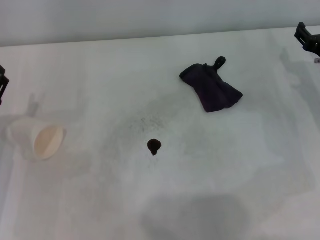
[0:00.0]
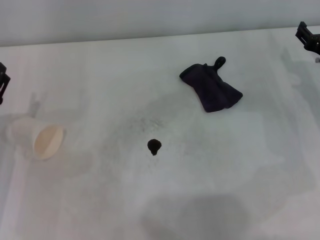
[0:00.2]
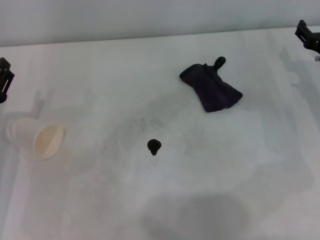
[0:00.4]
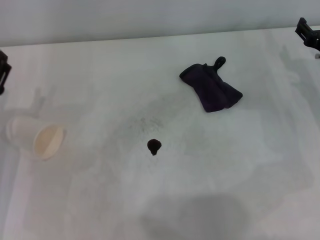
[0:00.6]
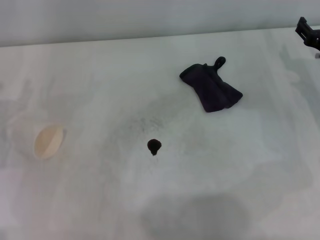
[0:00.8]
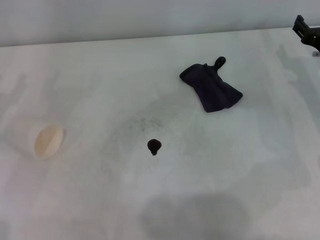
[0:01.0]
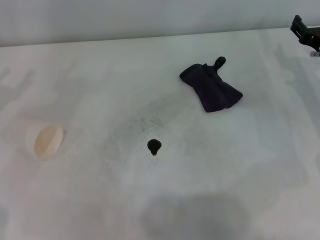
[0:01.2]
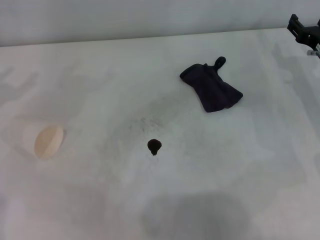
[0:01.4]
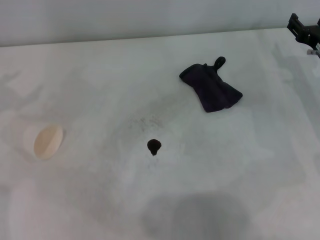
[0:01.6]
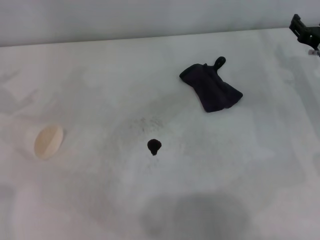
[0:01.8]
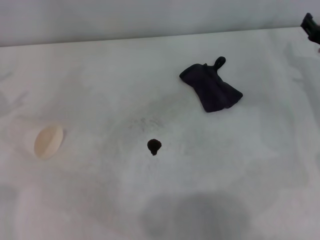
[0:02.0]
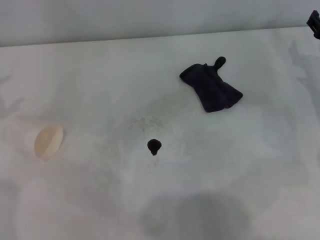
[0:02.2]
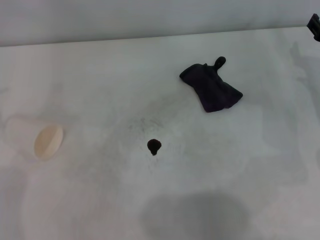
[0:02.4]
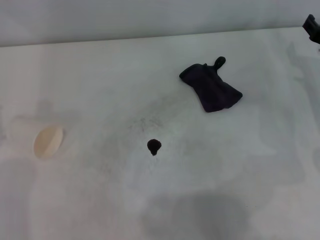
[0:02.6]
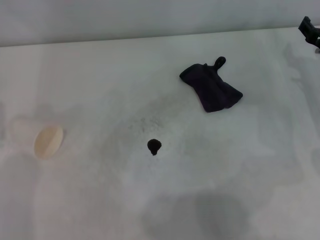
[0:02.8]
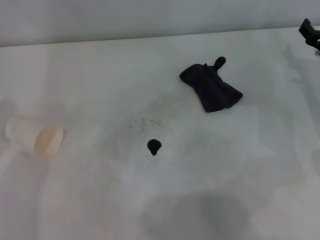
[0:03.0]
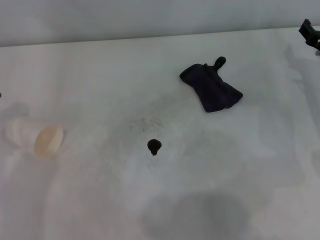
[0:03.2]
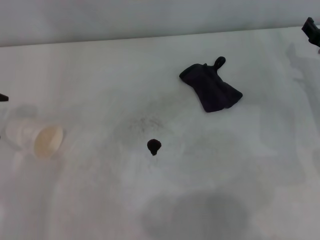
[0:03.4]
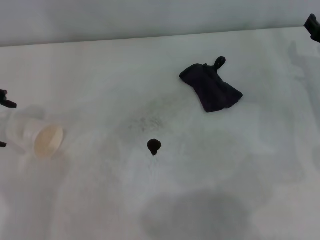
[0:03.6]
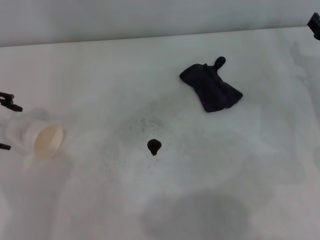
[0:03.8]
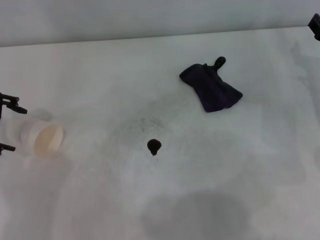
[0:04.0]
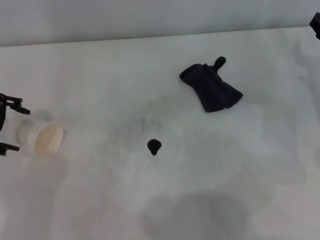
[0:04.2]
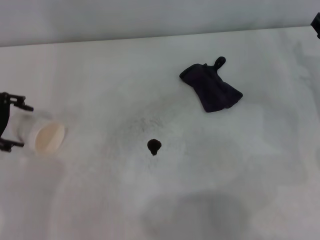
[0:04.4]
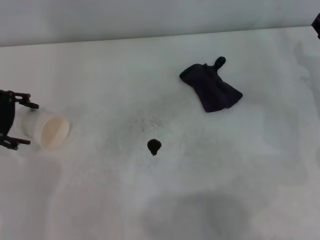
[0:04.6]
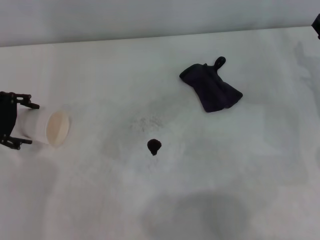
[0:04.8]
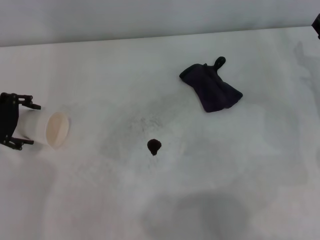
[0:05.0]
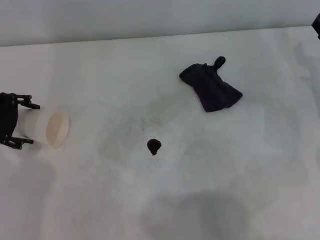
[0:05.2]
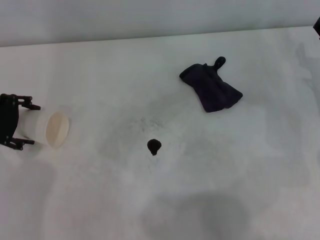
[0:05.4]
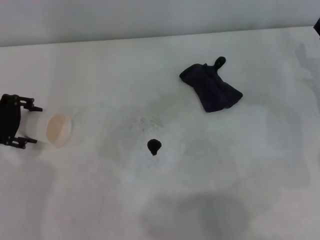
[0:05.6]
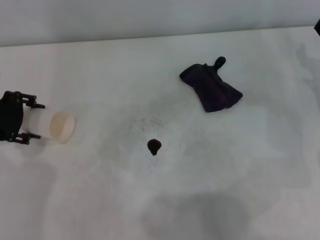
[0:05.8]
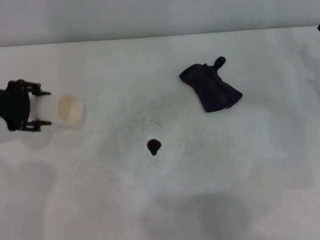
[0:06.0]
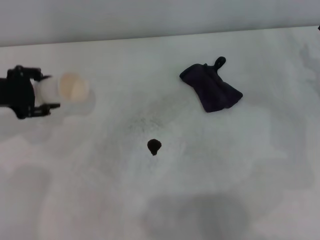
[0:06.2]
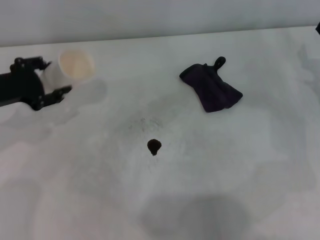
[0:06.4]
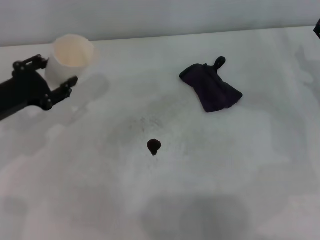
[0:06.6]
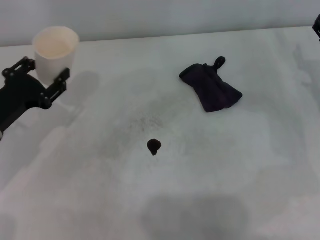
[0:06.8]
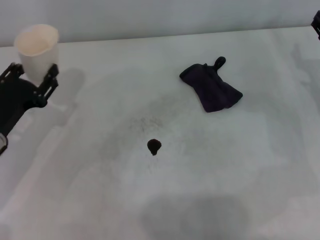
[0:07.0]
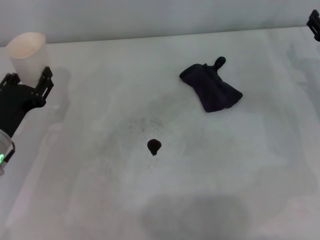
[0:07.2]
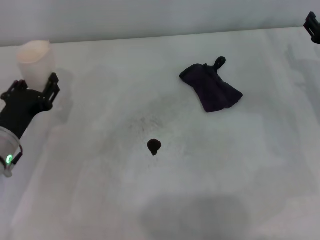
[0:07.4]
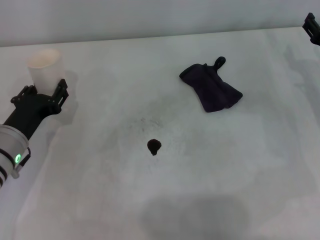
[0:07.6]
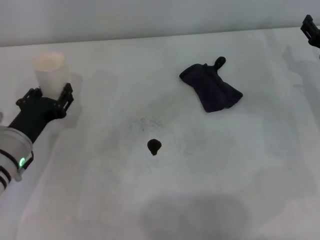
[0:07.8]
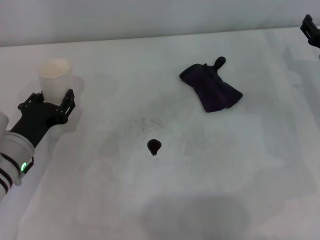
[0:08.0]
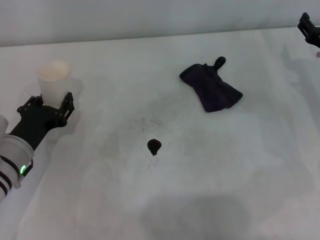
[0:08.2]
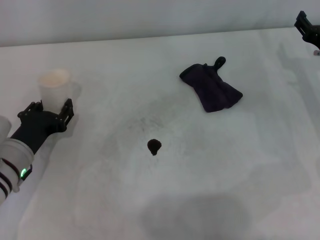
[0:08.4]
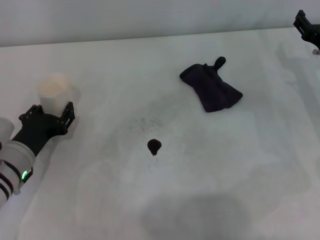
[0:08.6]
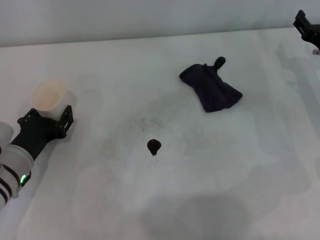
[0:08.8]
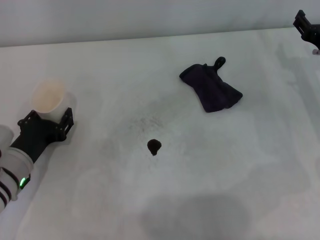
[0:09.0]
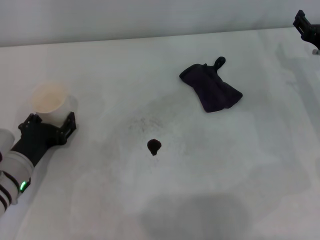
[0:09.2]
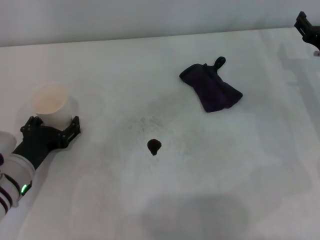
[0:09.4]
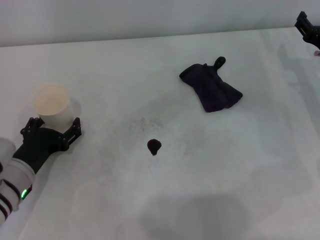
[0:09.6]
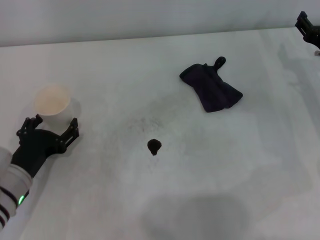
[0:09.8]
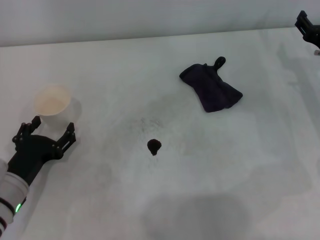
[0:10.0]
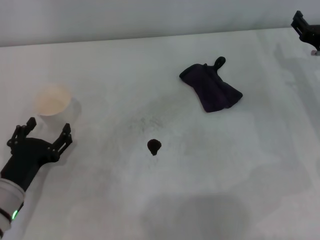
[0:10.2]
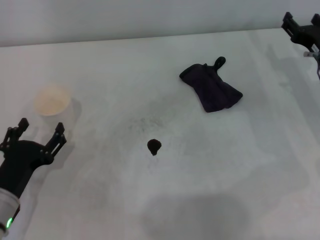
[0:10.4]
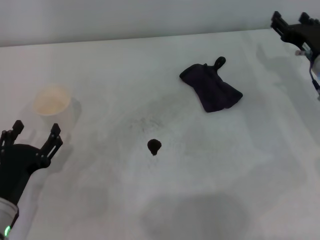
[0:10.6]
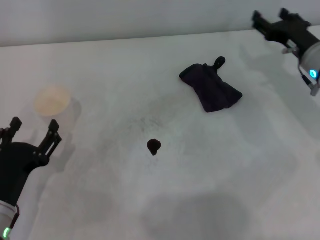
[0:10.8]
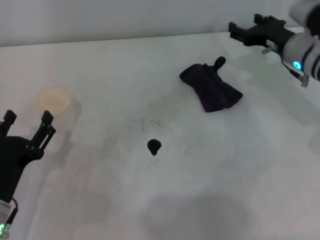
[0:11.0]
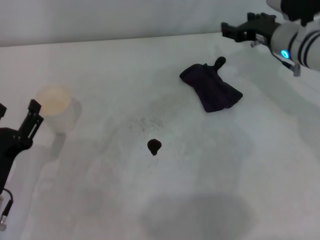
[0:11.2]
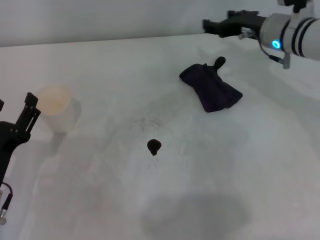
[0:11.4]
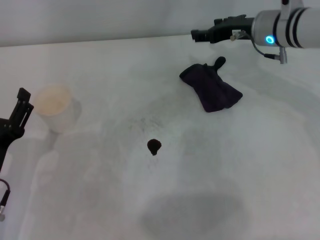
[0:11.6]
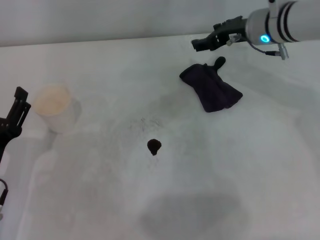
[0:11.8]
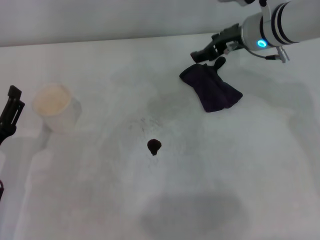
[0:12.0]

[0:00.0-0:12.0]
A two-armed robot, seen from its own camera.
Step, 0.0 to 5.6 s: Grasp the paper cup with the left gripper.
Step, 5.8 to 9.6 s: Stand the paper cup upright with the left gripper.
3.0 to 4.4 s: The left gripper heads to the right and downward, covering approximately 10 cm.
4.4 to 6.0 s: The left gripper closes its fingers.
6.0 to 7.6 s: The left gripper moves downward, backward and to the right, approximately 15 cm, and closes up.
7.6 to 9.0 s: There are only small adjustments of the grippers.
9.0 to 10.4 s: The left gripper is displaced backward by some 5 cm, and opens its fingers.
10.4 to 12.0 s: The right gripper goes approximately 15 cm to the left, upward and forward.

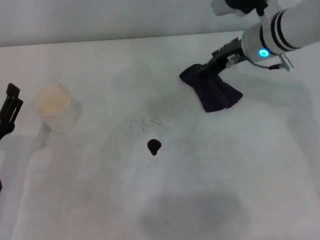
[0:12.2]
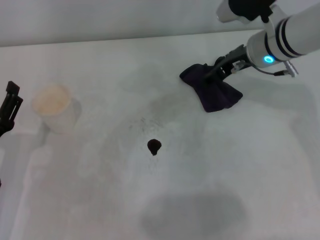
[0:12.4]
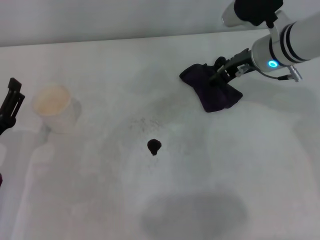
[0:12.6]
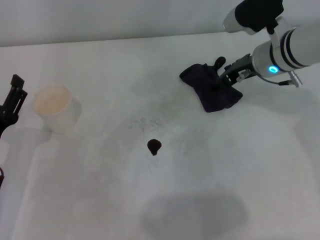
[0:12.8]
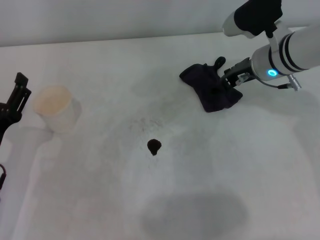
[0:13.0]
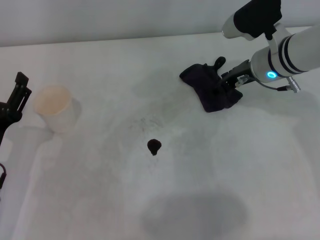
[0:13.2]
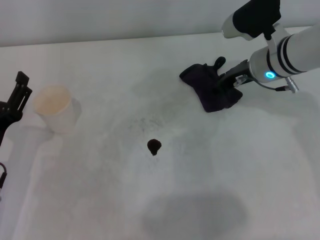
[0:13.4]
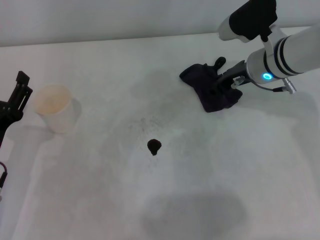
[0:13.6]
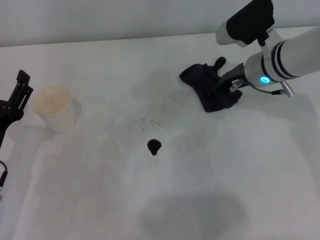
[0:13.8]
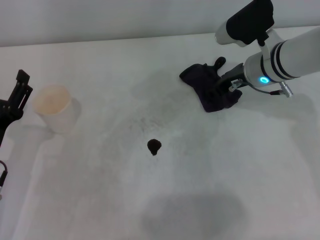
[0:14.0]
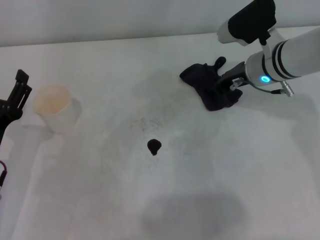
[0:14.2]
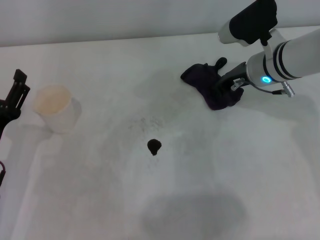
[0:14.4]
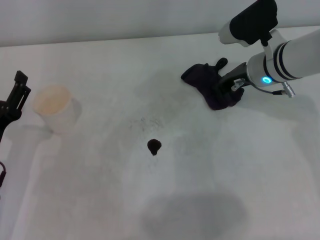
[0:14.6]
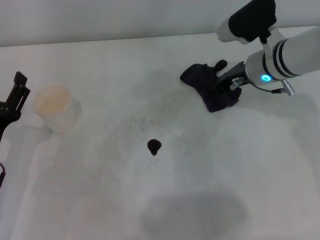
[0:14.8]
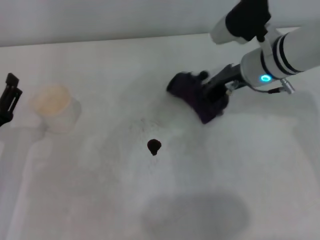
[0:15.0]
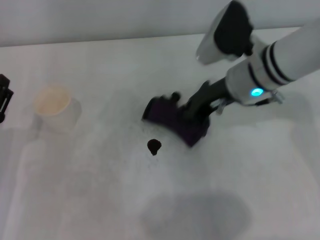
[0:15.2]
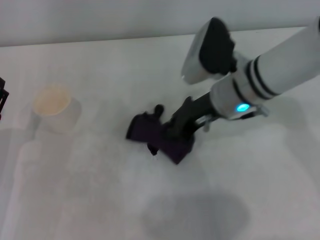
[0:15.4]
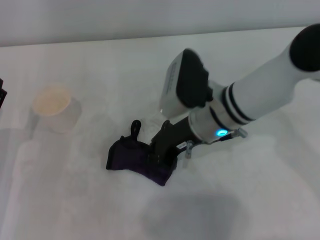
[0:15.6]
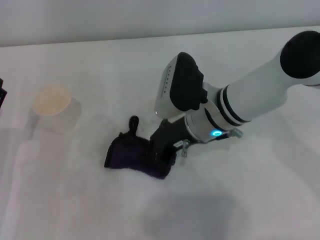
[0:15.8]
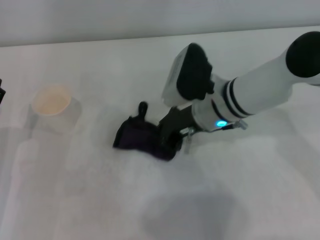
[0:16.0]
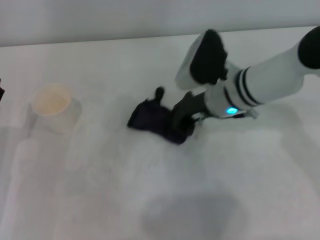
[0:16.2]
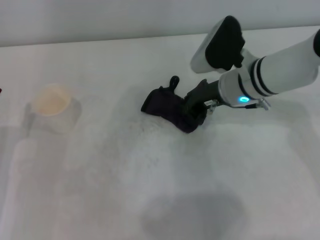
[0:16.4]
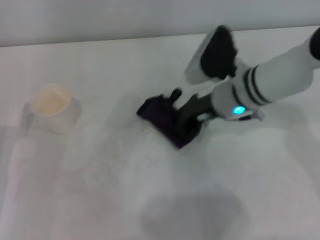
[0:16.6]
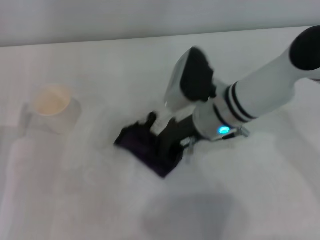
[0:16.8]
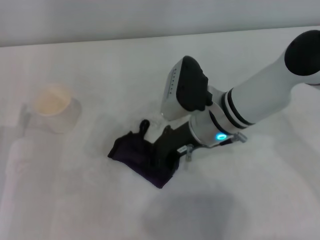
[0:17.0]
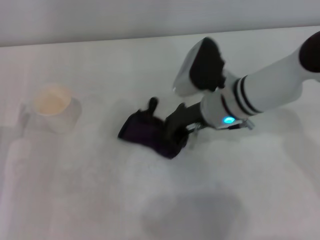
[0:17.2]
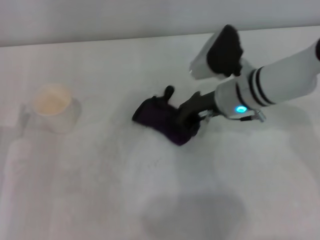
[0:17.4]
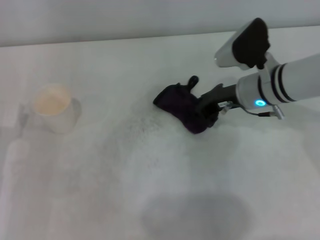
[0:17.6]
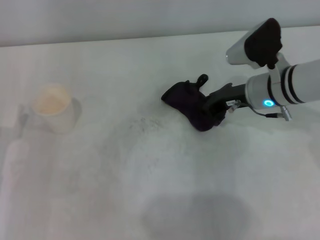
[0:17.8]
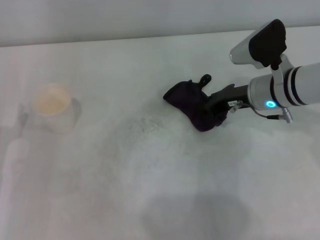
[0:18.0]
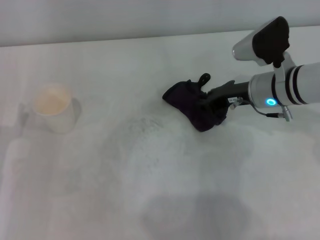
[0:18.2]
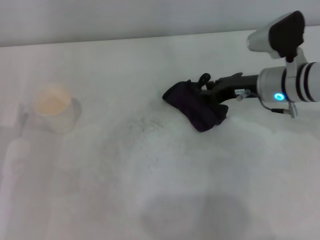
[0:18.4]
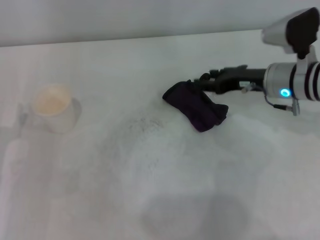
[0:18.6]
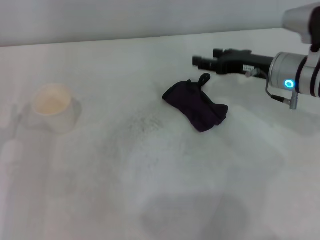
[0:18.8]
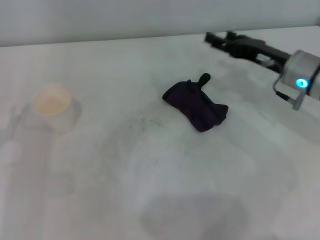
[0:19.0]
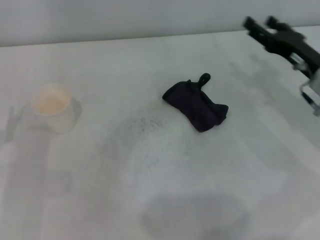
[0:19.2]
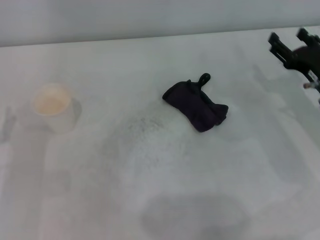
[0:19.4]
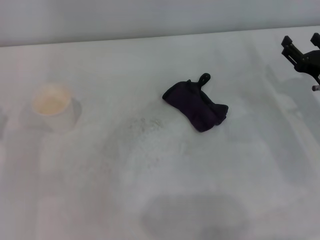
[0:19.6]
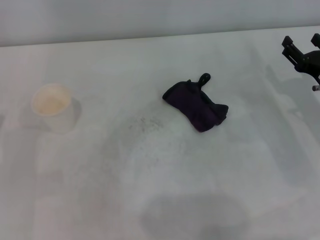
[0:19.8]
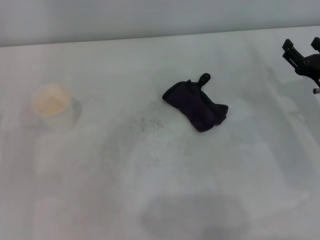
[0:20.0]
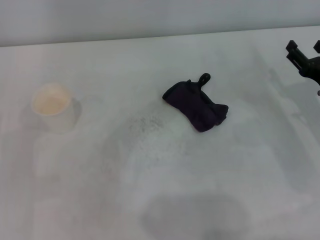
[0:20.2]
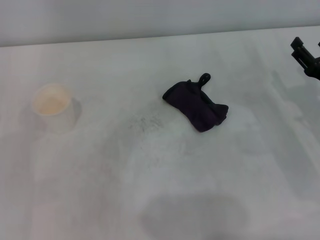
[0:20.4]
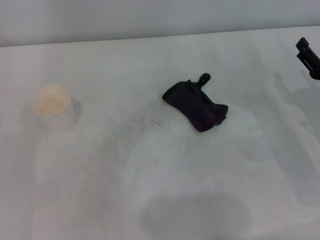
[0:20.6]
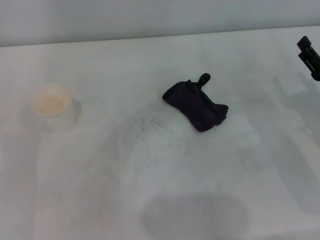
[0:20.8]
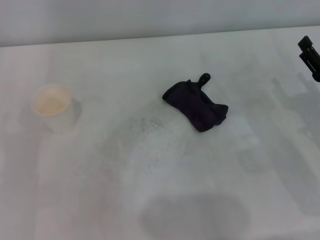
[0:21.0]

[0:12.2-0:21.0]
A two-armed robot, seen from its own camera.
Step, 12.2 to 14.6 s: Grasp the rag with the right gripper.
Step, 14.8 to 17.2 s: Wipe the stains off the table with the right gripper.
Step, 17.4 to 18.0 s: Place the rag on the table with the right gripper.
12.2 to 13.6 s: The right gripper closes up.
13.6 to 15.2 s: The right gripper shifts by roughly 5 cm, and closes.
16.6 to 18.0 s: The right gripper moves to the right, roughly 5 cm.
18.0 to 19.6 s: The right gripper shifts approximately 15 cm to the right and backward, and opens up.
19.6 to 21.0 s: The right gripper moves backward, some 5 cm.

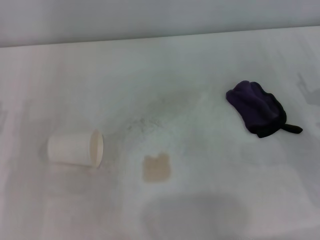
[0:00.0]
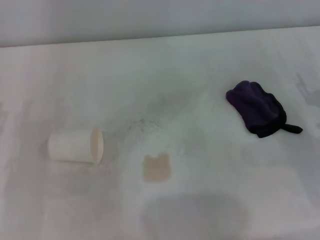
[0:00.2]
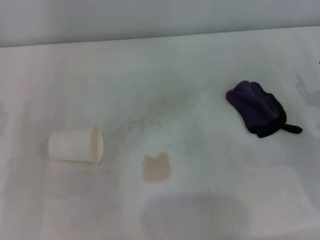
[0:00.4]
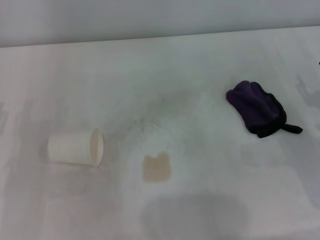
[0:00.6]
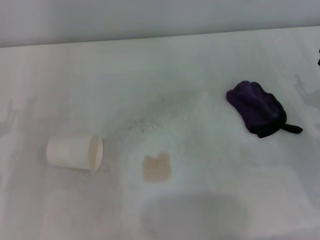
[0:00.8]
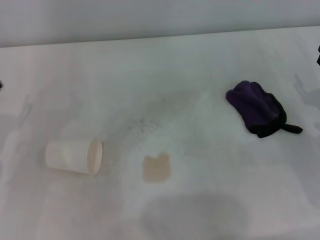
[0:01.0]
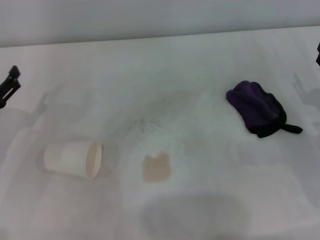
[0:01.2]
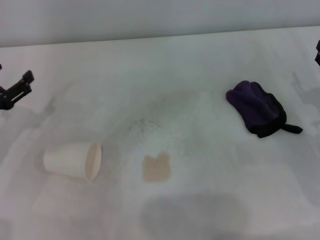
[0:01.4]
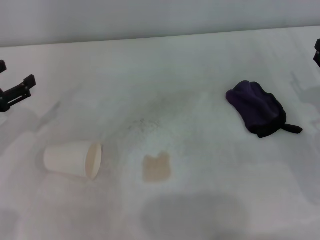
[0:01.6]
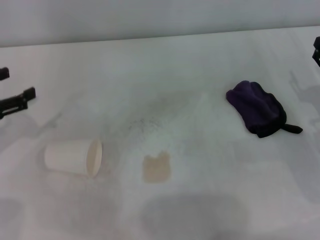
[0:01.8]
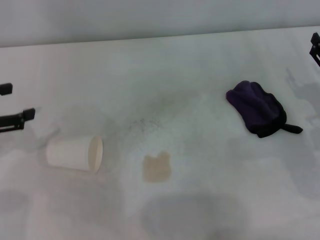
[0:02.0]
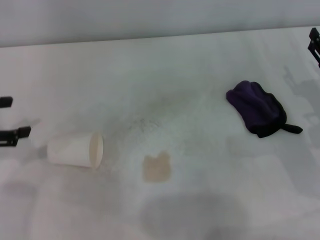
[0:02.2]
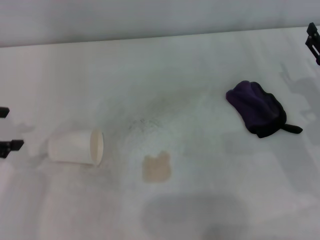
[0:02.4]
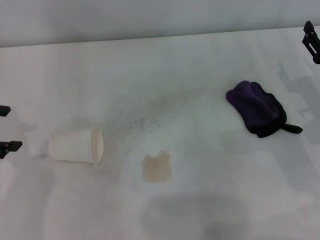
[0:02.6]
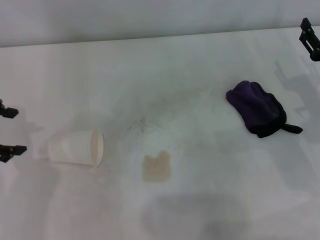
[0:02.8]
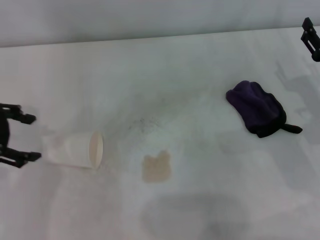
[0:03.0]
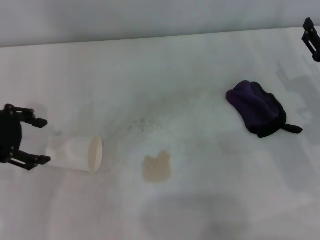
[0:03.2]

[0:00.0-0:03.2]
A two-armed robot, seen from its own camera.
0.0 to 1.6 s: The left gripper travels forward by some 5 cm.
1.6 to 3.2 s: The left gripper travels upward by roughly 5 cm.
